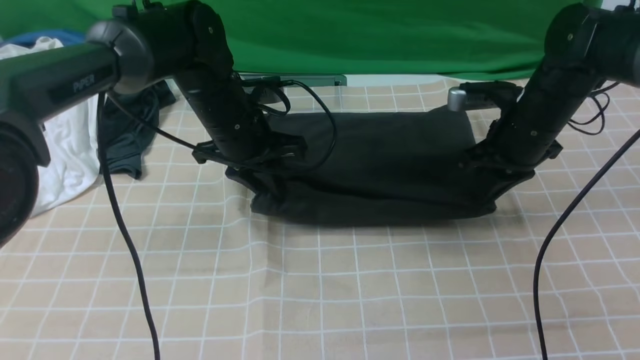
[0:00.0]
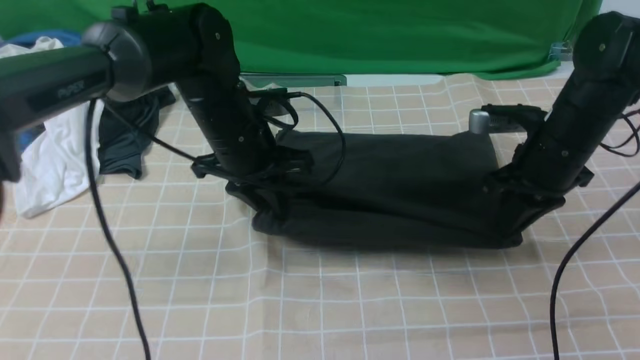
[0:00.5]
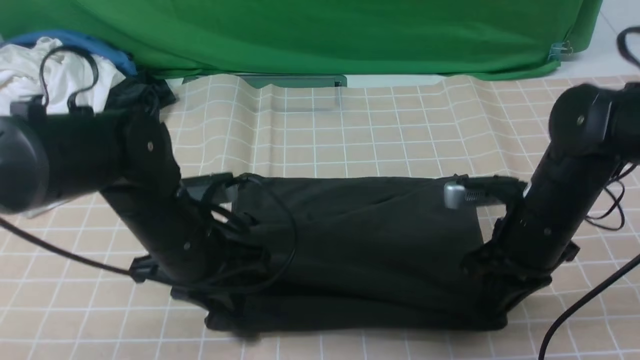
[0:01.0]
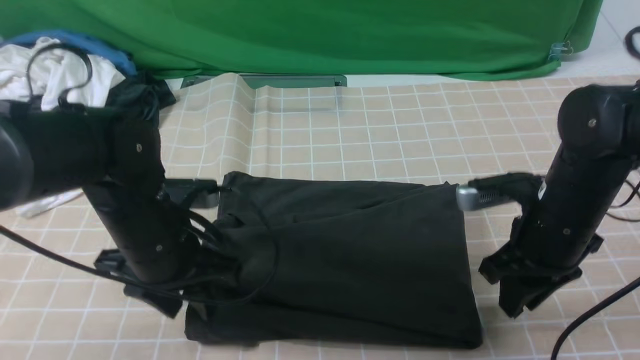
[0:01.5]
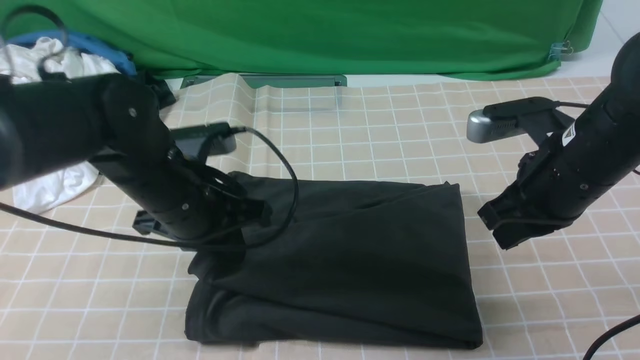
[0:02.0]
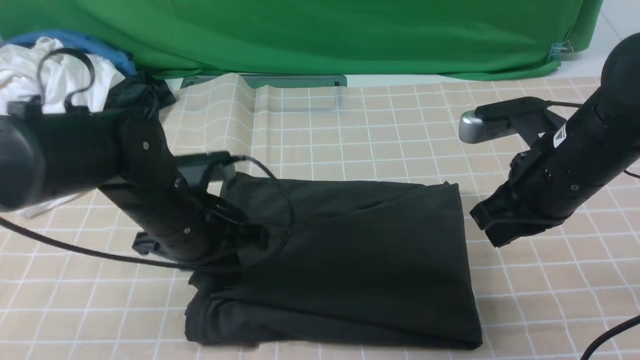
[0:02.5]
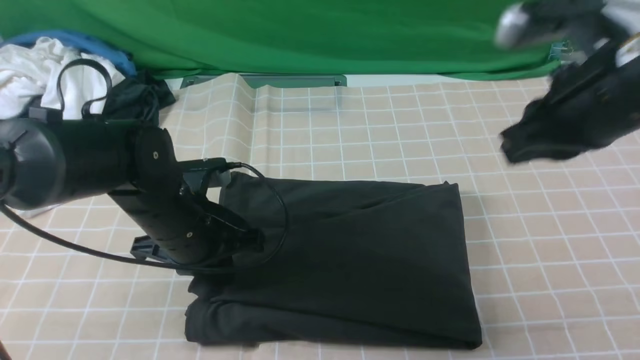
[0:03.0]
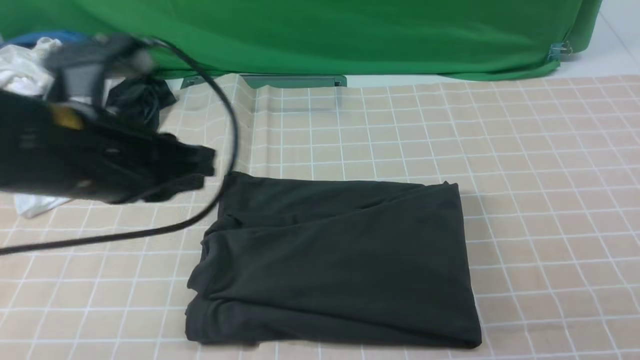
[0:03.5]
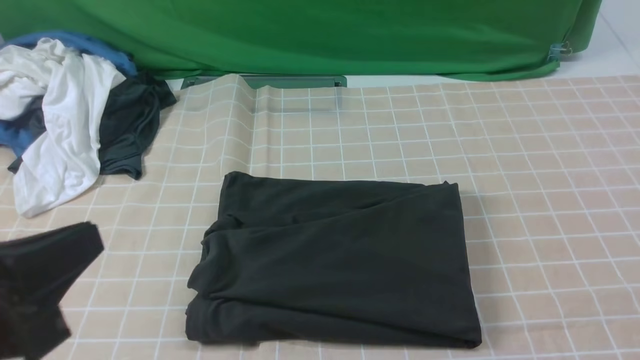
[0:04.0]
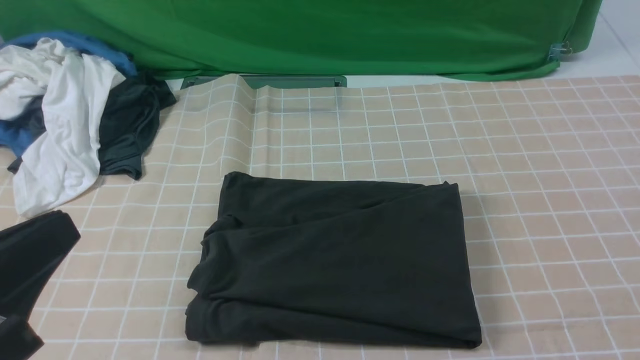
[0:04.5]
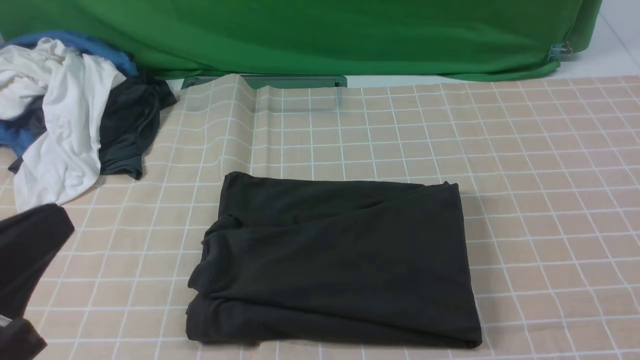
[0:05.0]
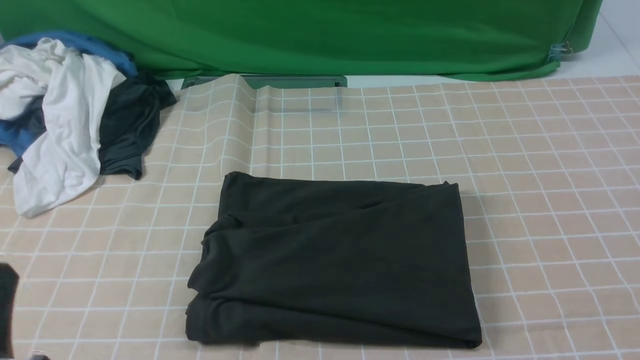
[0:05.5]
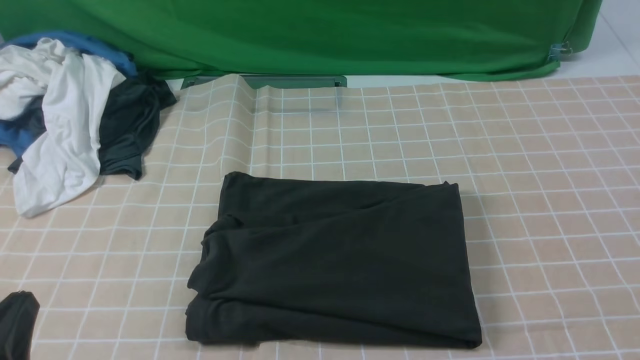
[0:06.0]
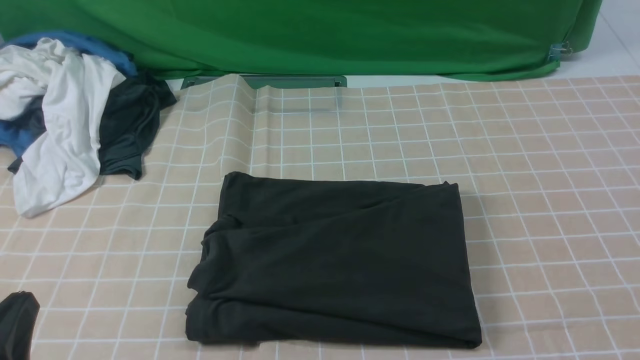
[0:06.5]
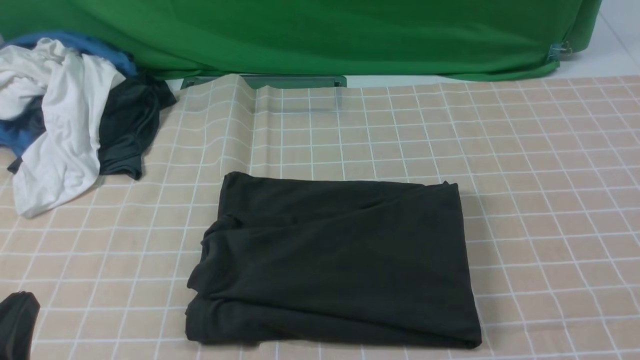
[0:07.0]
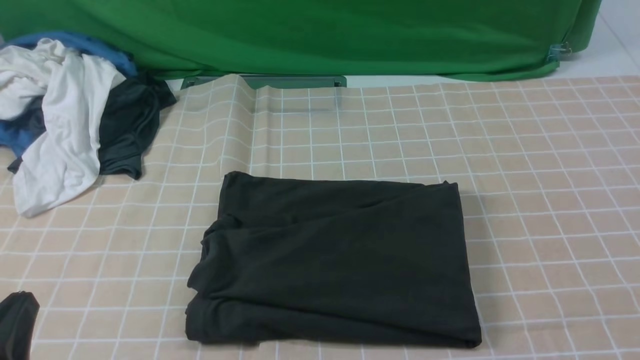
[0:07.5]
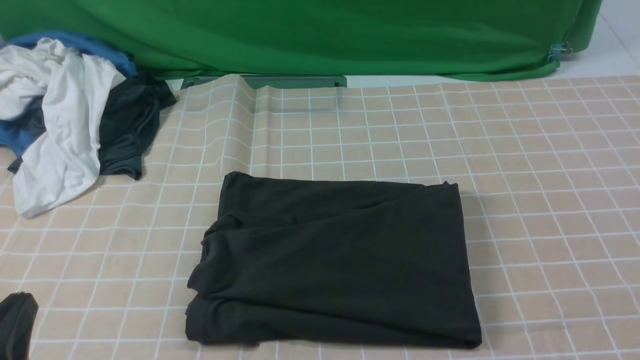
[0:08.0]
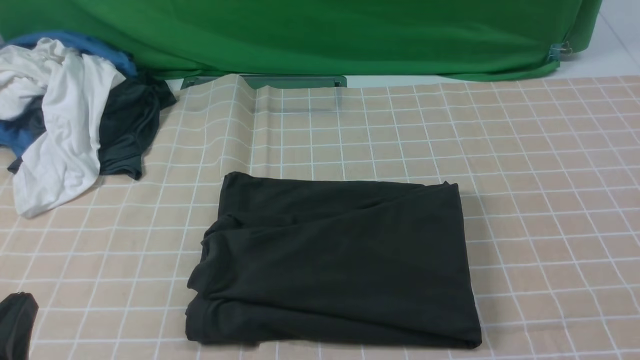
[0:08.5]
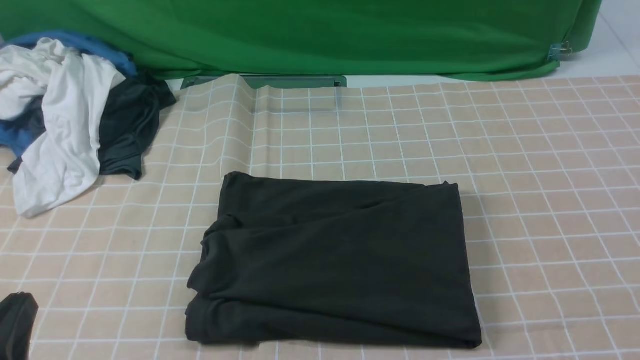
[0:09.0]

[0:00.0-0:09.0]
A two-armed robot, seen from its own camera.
0:00.0 to 0:02.0: The right gripper is displaced backward and upward by approximately 15 cm, while the left gripper shifts roughly 10 cm backward, and opens and closes again.
0:02.0 to 0:04.5: The right gripper is displaced backward by approximately 25 cm, while the left gripper moves backward, upward and to the left, some 25 cm.
0:04.5 to 0:07.0: The left gripper goes approximately 10 cm downward.

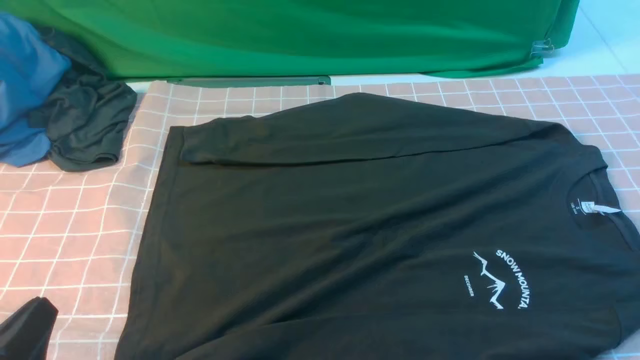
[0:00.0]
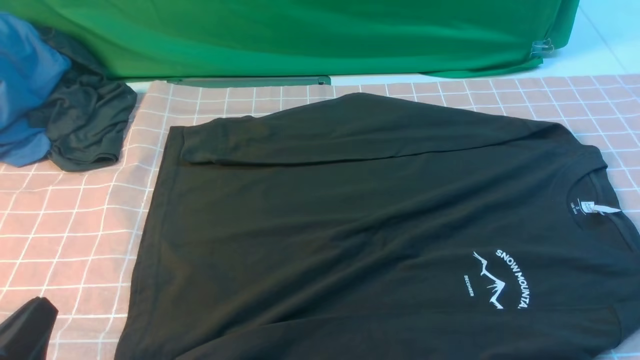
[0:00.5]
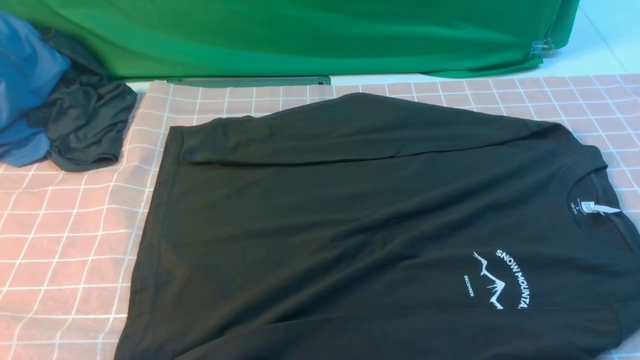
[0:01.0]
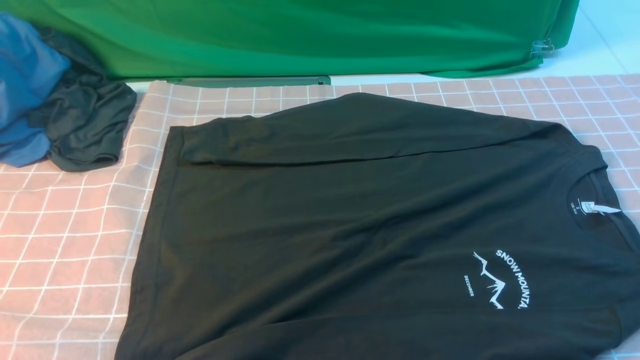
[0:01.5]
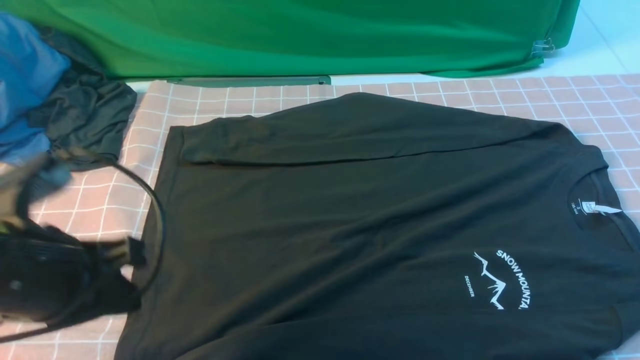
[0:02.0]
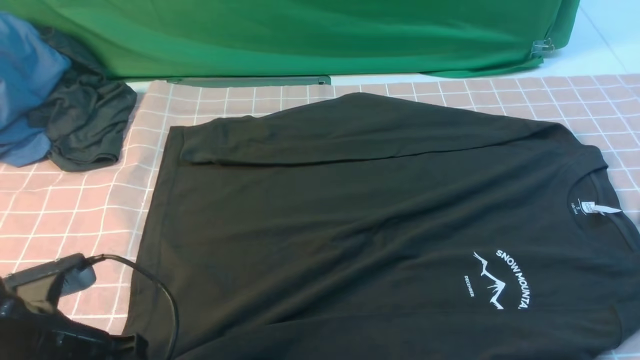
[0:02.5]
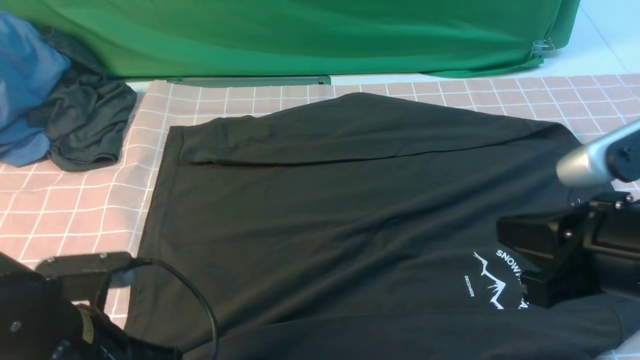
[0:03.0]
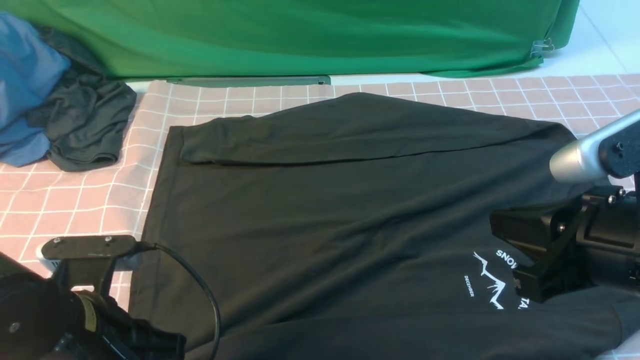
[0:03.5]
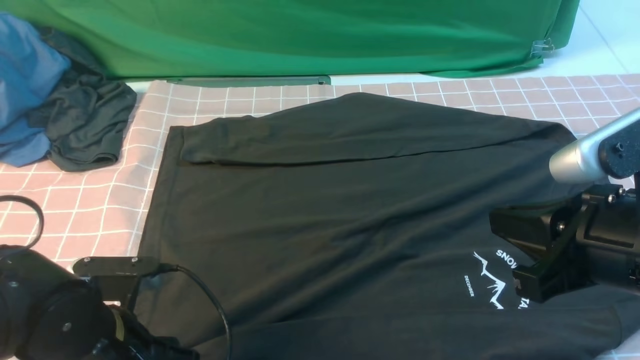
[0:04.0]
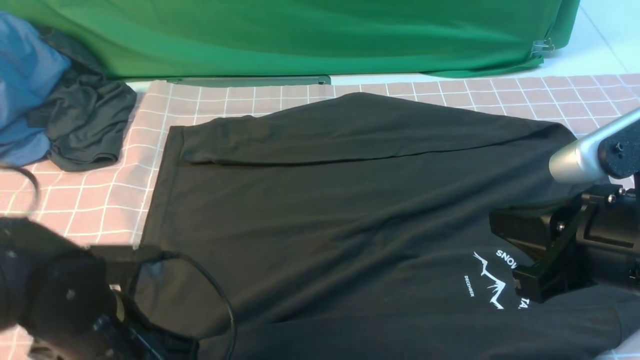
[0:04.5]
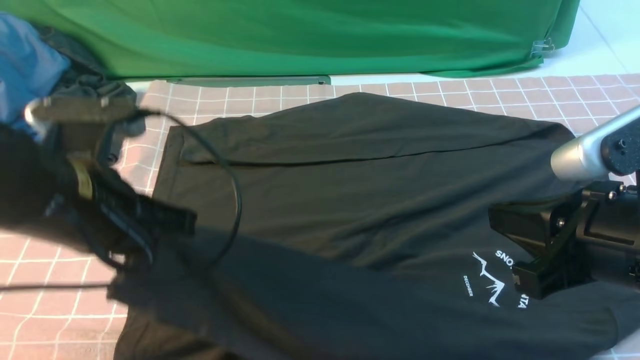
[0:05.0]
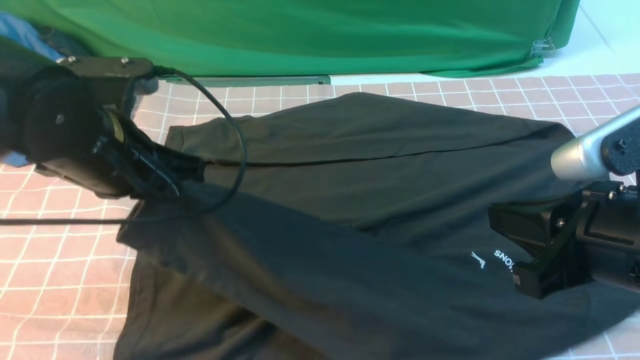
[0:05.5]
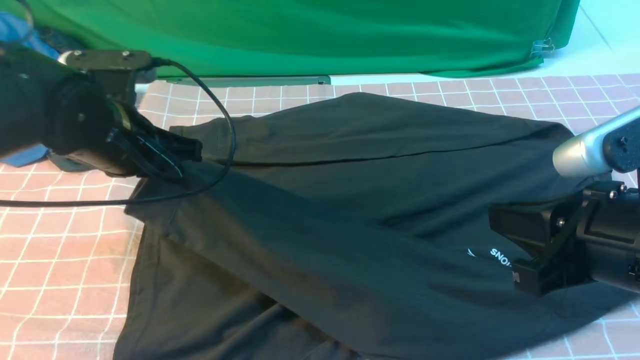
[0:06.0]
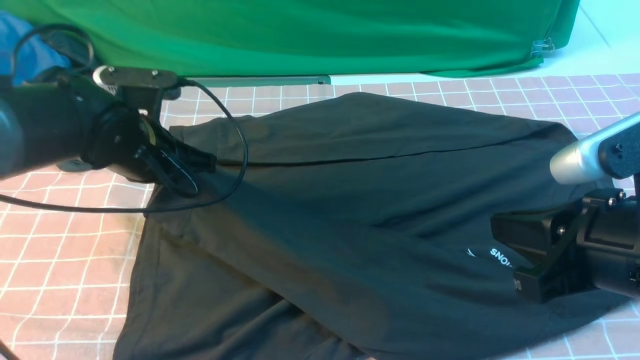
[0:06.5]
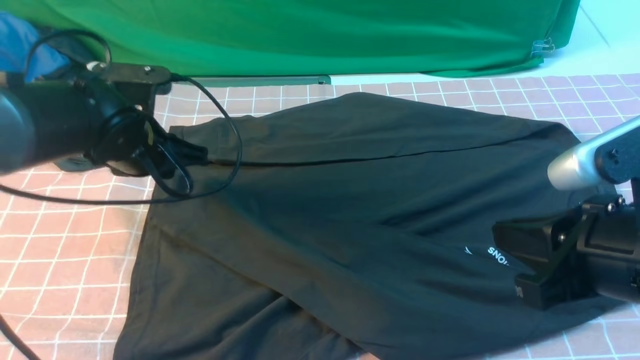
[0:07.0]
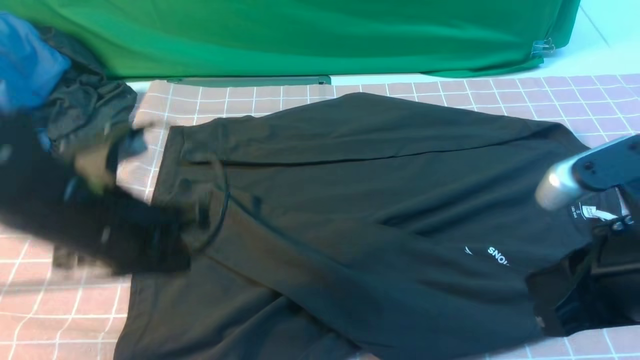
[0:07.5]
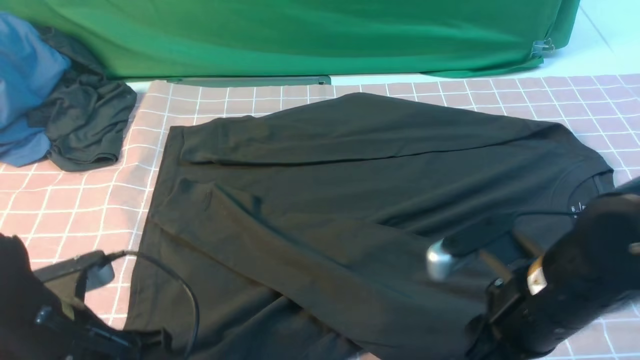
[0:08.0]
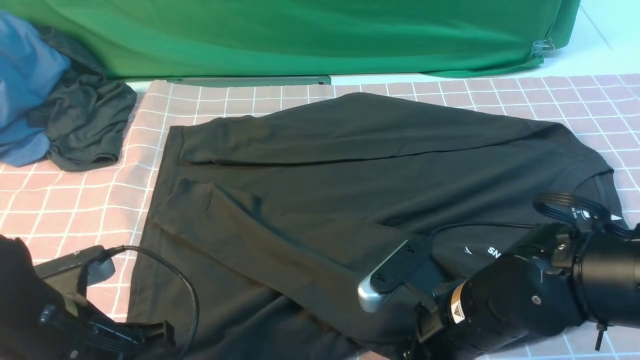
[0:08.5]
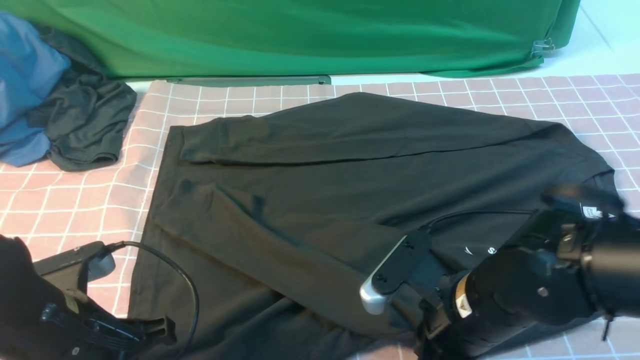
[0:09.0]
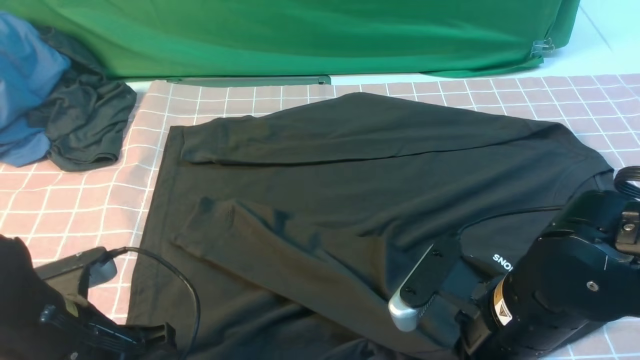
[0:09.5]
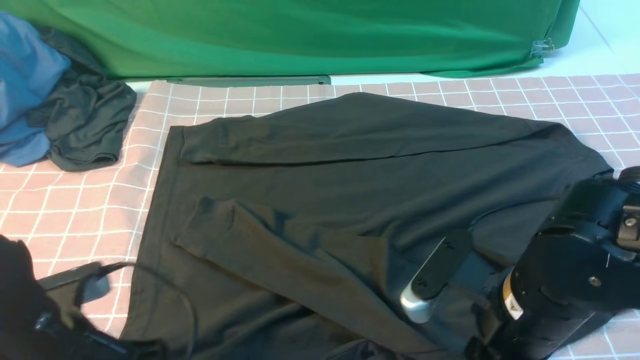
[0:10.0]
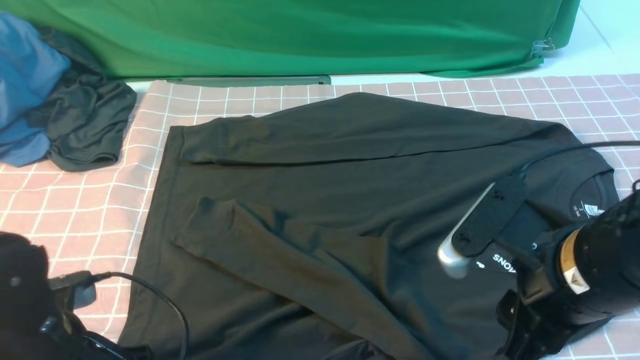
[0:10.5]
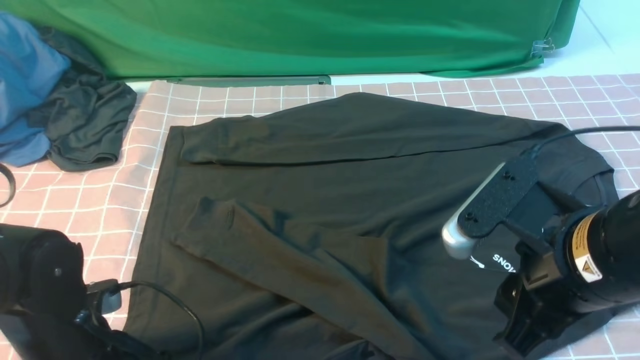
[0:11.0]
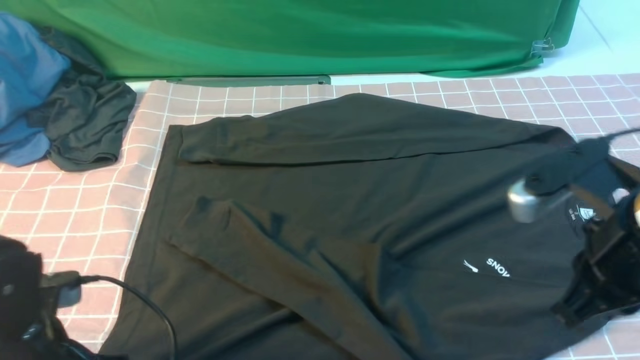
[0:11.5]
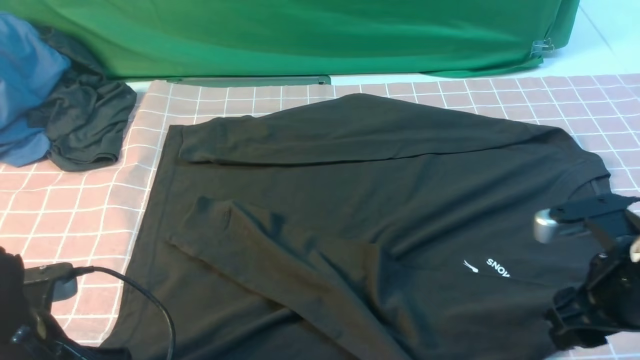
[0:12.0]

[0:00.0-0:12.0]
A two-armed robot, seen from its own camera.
Step, 0:00.0 to 0:04.0: use the left arm to clamp the cuff closest to it.
Step, 0:04.5 to 0:07.0: use the left arm to drag and place the cuff at the centered position on the left edge of the fabric.
0:00.0 to 0:02.0: The left gripper goes roughly 15 cm forward and upward.
0:02.0 to 0:04.0: The right gripper is displaced to the left and forward by approximately 15 cm. Meanwhile the left gripper is displaced downward by roughly 10 cm, and opens up.
0:04.0 to 0:06.0: The left gripper moves forward and upward, roughly 20 cm, and closes its fingers.
0:06.0 to 0:08.0: The left gripper shifts approximately 15 cm backward, and opens, then closes again; the right gripper moves downward, about 10 cm, and opens its fingers.
0:08.0 to 0:10.0: The left gripper opens its fingers, while the right gripper closes, then reopens.
0:10.0 to 0:12.0: The right gripper moves to the right, about 10 cm, and closes, then opens again, while the left gripper closes.
